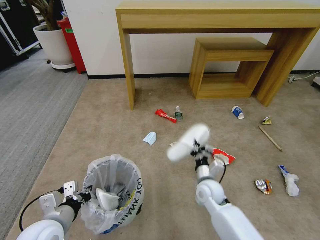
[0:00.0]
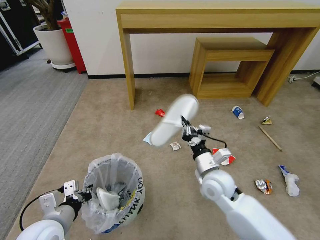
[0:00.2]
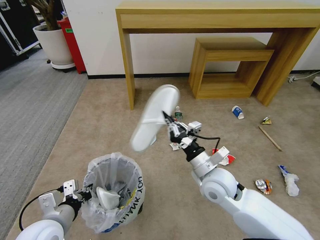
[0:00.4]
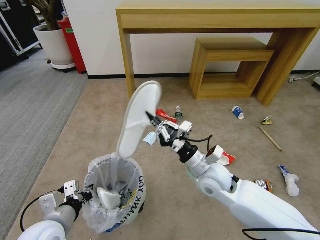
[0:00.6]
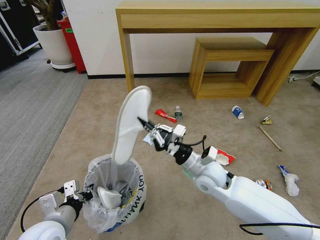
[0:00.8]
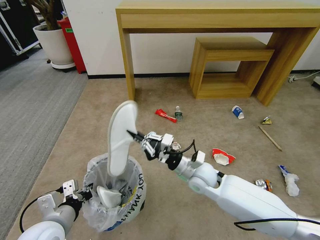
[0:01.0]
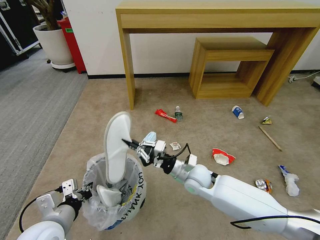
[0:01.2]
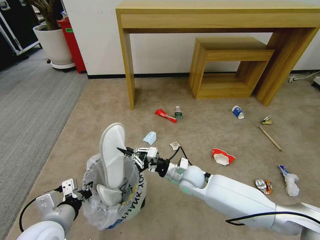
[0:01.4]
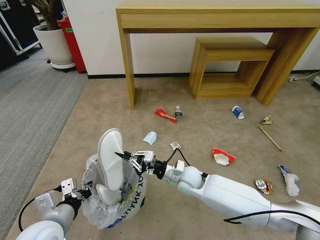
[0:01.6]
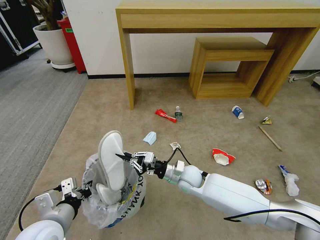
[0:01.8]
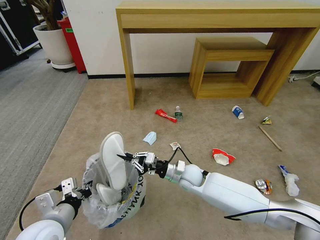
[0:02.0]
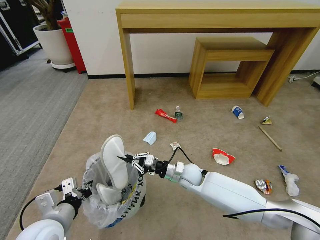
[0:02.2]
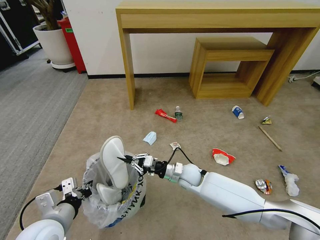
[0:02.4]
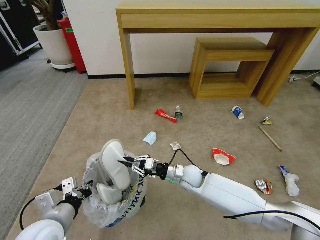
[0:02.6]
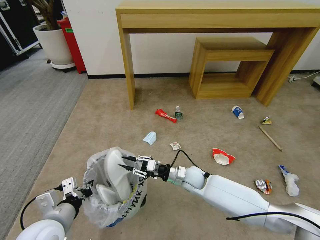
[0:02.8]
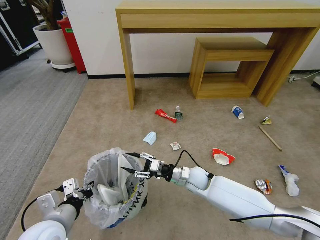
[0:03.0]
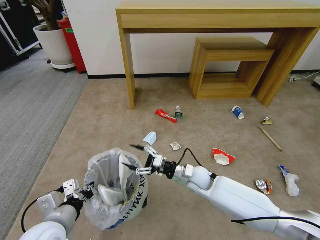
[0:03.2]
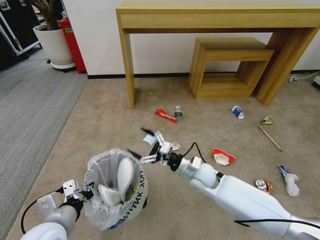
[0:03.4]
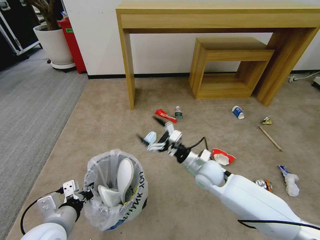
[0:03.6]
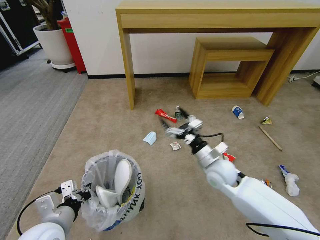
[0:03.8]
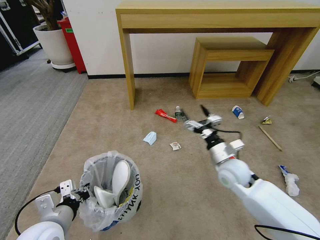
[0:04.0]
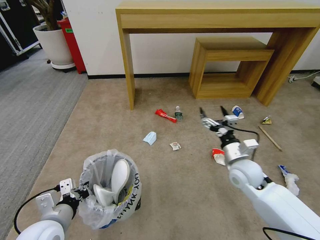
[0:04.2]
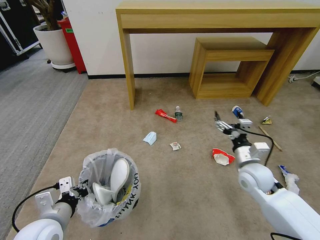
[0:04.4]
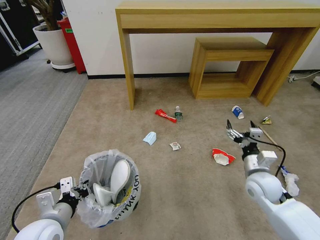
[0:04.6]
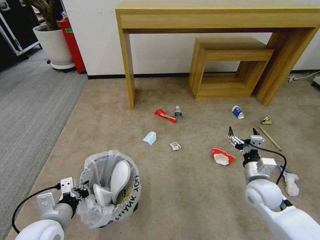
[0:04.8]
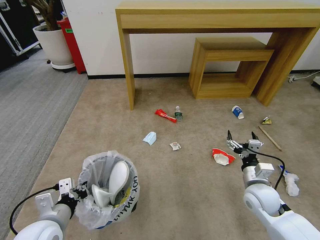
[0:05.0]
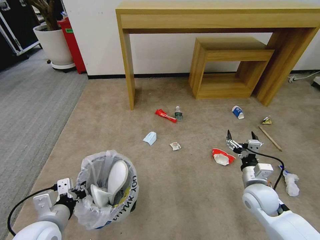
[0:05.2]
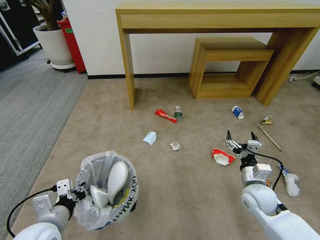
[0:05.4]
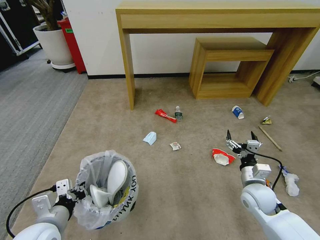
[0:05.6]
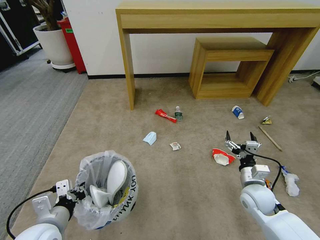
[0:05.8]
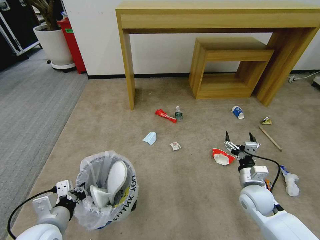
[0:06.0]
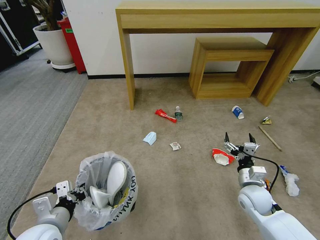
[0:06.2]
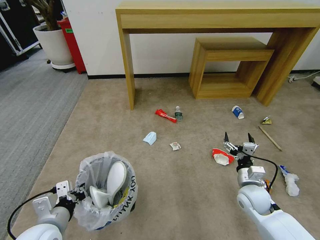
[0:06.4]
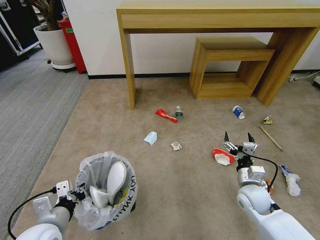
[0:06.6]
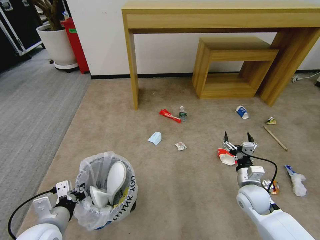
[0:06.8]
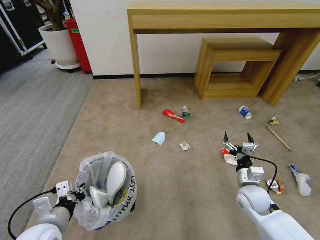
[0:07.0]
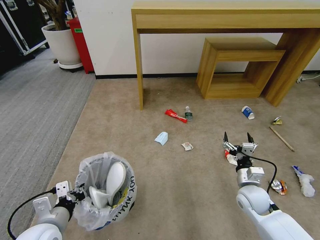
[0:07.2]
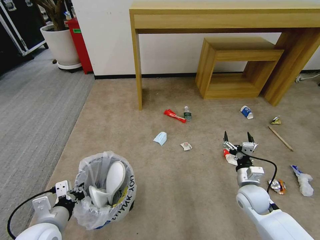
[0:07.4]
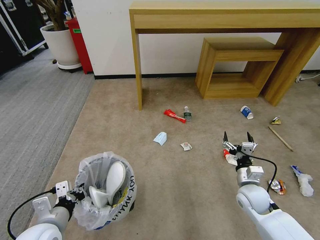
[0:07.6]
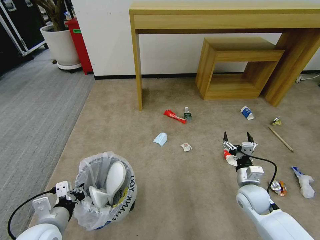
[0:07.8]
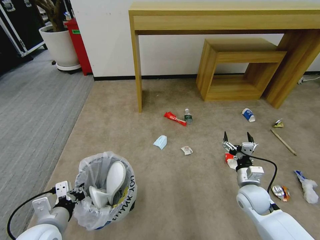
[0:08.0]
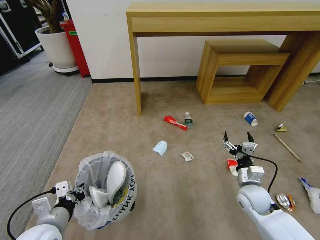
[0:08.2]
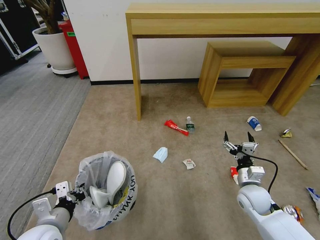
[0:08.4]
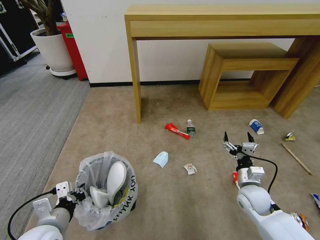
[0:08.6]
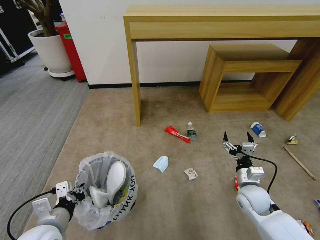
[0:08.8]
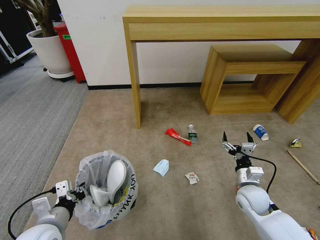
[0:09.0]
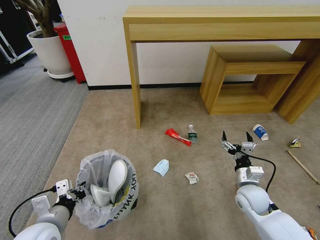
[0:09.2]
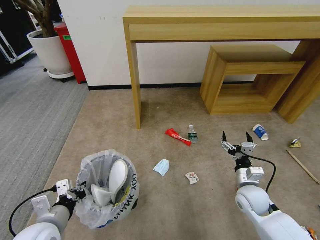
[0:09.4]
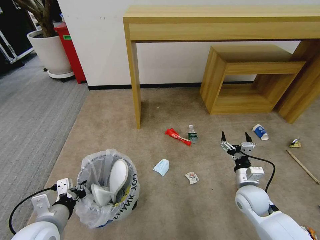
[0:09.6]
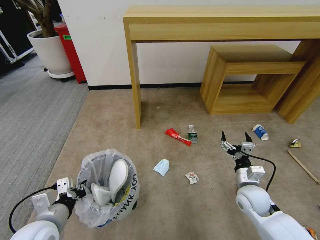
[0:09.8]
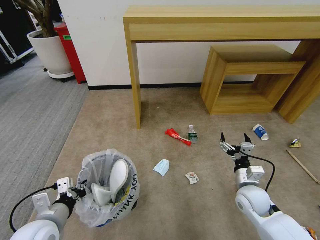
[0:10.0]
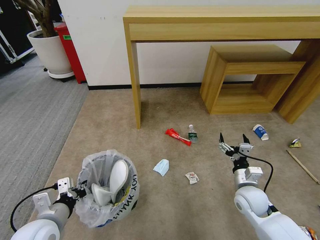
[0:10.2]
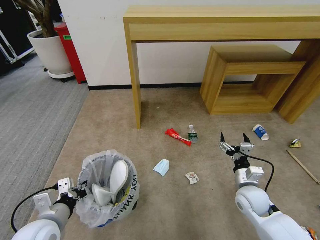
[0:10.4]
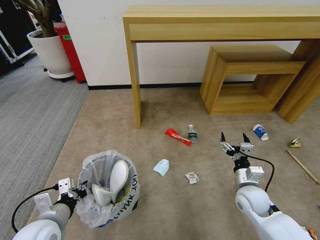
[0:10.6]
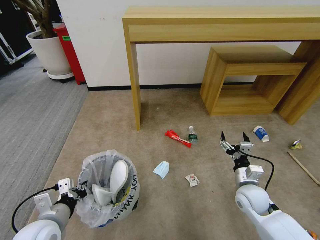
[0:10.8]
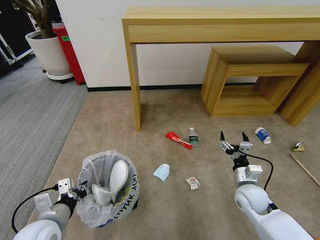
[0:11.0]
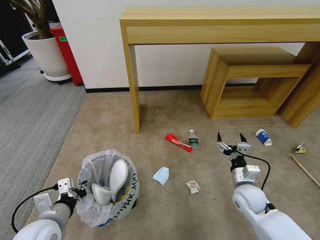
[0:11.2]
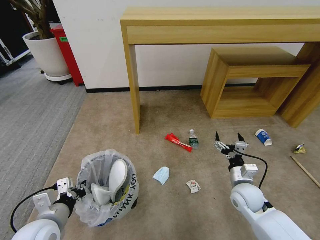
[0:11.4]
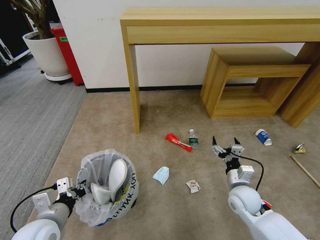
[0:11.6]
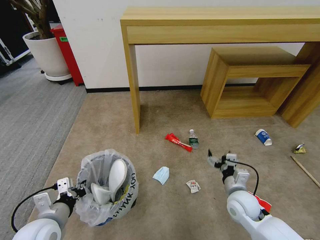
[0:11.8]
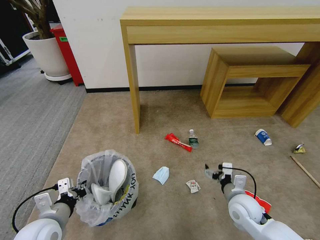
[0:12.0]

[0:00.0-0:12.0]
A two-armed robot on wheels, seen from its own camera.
Task of the whole recording: Pick up the trash bin and place the garbage on the floor into it.
0:00.0 to 0:01.6: The right gripper is displaced to the left by roughly 5 cm, and goes upward and returns, some 10 cm each way.
0:01.6 to 0:03.0: The right gripper opens its fingers.
0:03.0 to 0:04.4: The right gripper travels to the right and upward by some 20 cm, and opens.
0:04.4 to 0:06.0: The right gripper travels downward by some 10 cm.
0:06.0 to 0:07.6: Both grippers stay about where they are.
0:09.0 to 0:10.4: The grippers make only small movements.

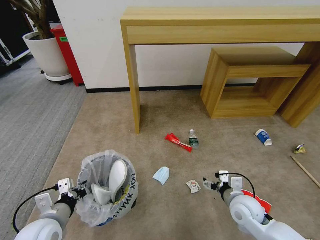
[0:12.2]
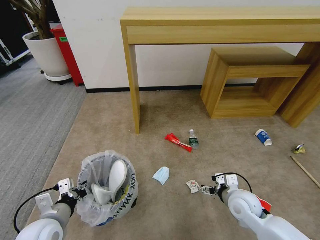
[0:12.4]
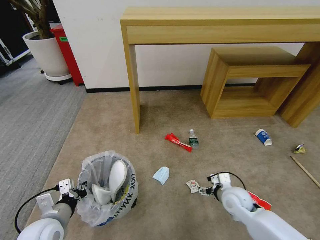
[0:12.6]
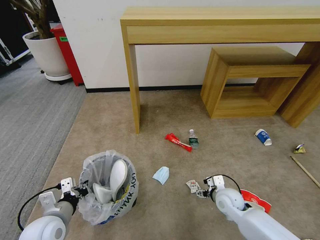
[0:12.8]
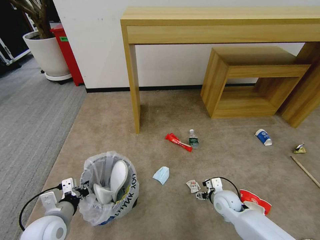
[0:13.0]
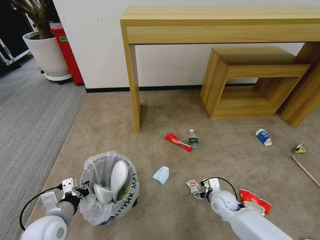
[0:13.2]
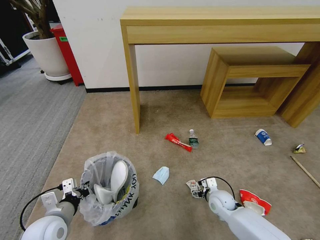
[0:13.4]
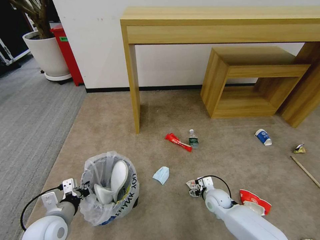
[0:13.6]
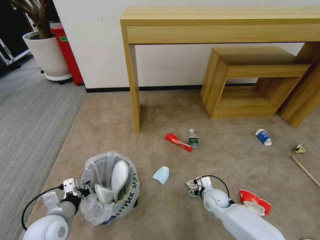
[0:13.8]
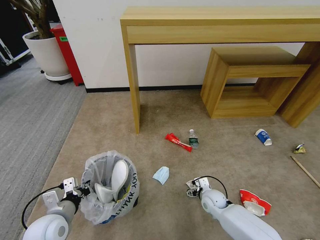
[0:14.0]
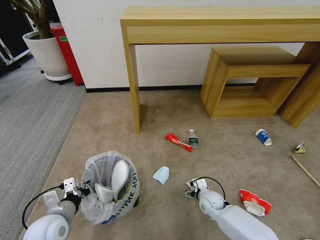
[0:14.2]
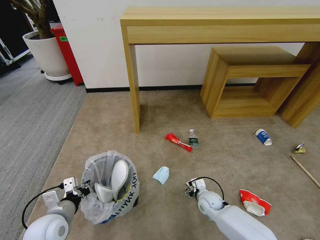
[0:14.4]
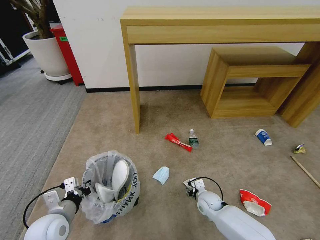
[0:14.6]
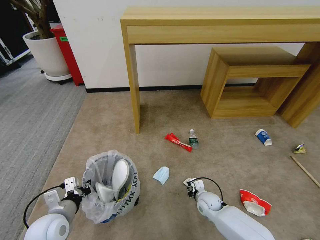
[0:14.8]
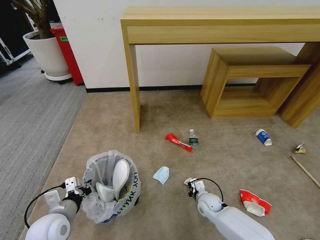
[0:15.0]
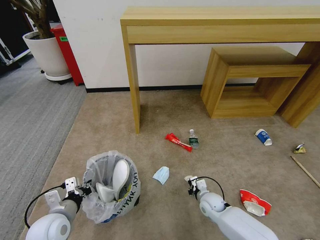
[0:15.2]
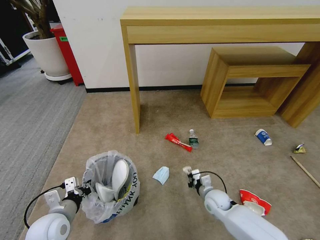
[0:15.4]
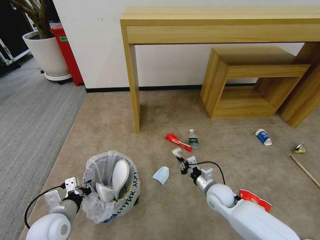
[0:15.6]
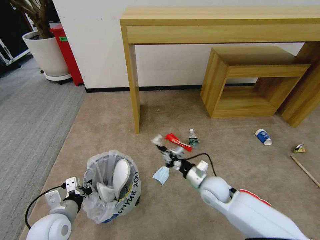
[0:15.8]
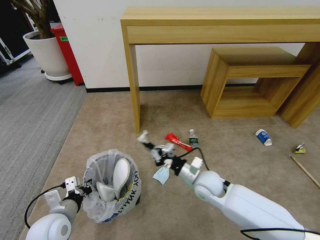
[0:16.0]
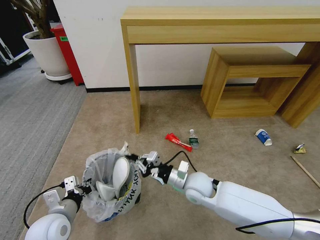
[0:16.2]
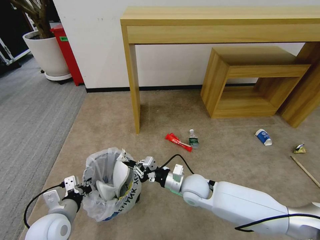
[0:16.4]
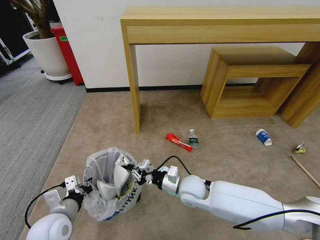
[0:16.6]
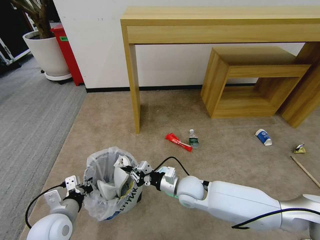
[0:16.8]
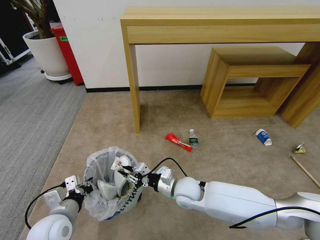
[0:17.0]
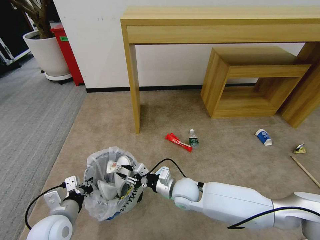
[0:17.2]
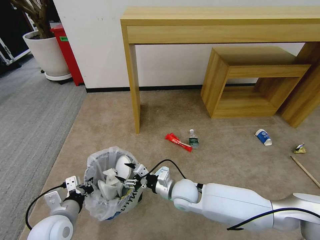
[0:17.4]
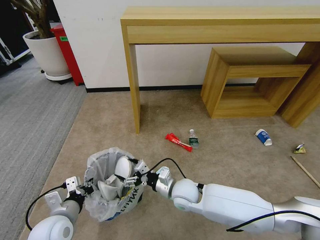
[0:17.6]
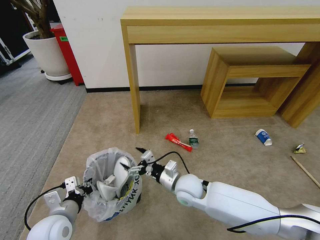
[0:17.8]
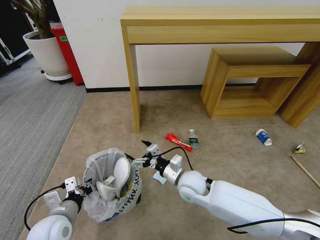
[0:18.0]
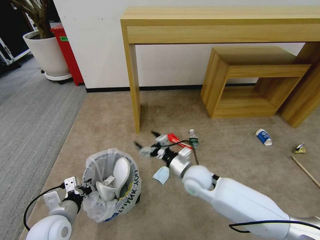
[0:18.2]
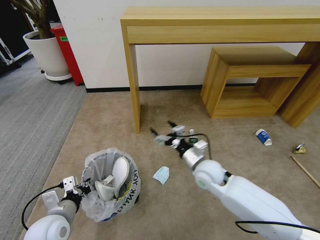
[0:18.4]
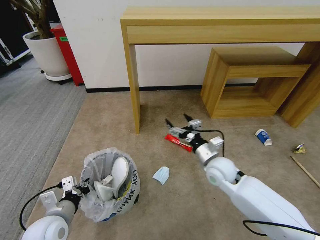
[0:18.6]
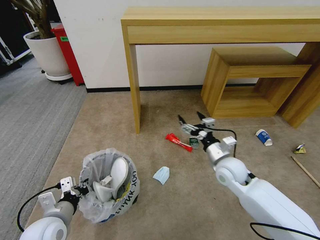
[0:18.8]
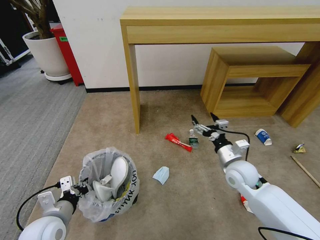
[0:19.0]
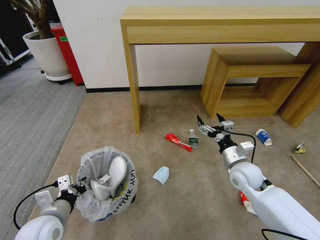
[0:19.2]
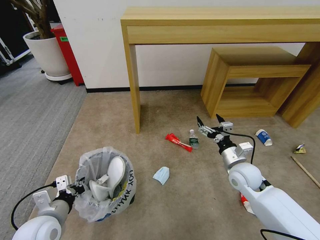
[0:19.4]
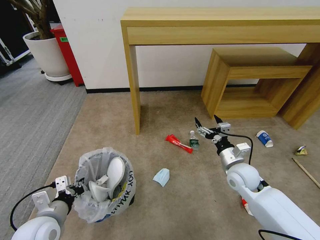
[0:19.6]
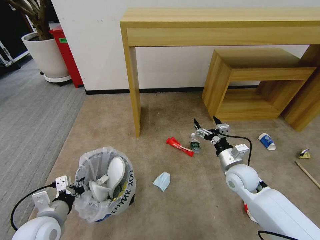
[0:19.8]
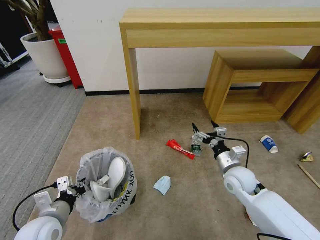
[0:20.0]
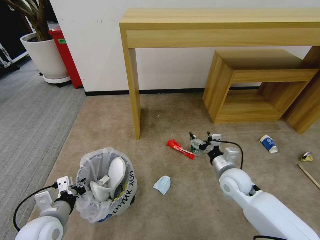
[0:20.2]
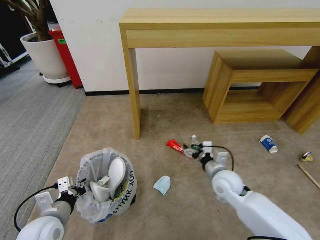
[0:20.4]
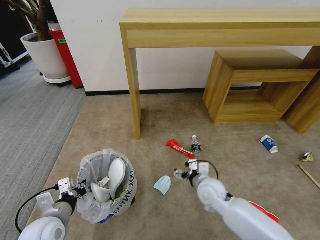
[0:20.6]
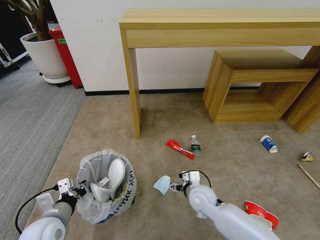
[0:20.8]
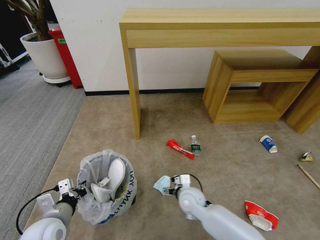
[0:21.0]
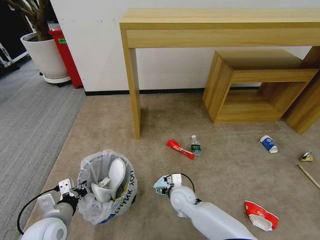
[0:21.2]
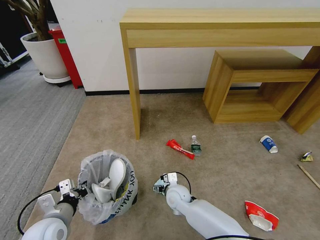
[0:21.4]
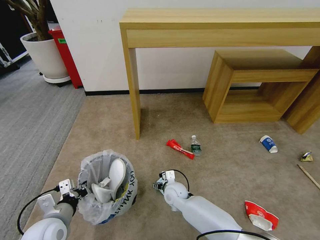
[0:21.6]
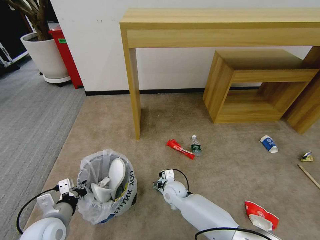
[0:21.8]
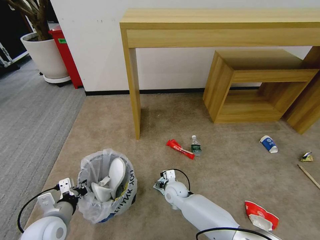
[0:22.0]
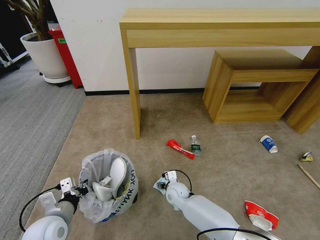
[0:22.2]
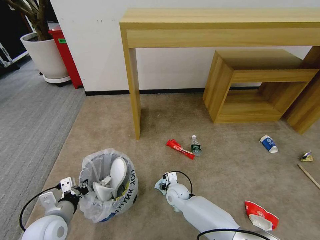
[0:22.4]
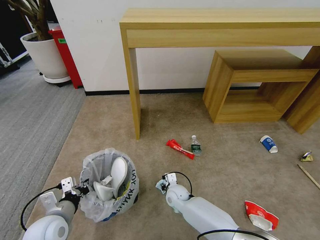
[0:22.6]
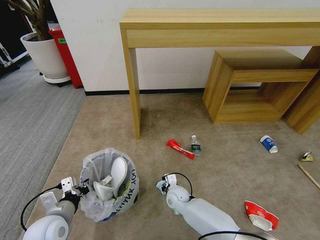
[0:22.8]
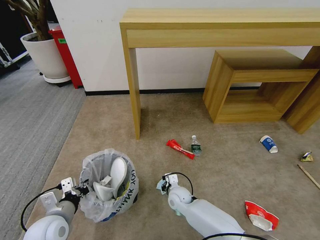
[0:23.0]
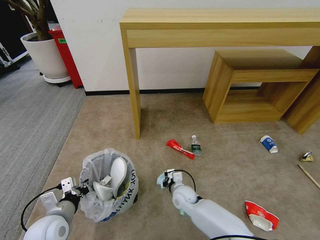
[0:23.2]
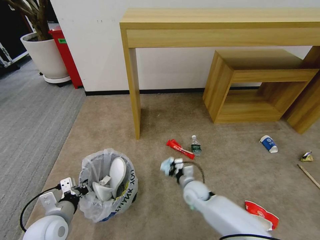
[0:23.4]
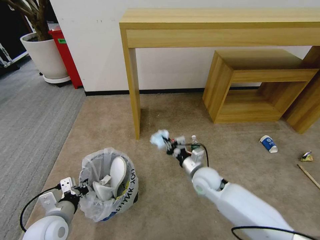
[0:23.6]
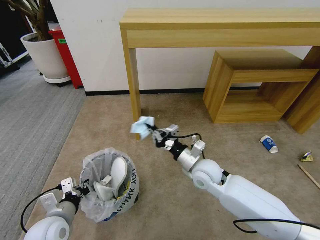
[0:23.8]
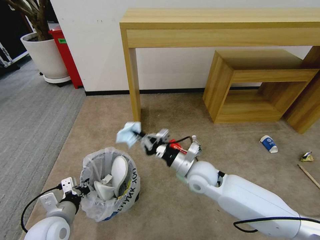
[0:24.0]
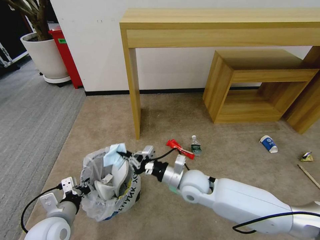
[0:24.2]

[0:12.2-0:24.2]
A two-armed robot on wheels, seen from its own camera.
Task of the whole recording: Pick up the trash bin and place the garbage on the floor into it.
0:12.2 to 0:13.8: The right gripper shifts approximately 15 cm downward and forward.
0:13.8 to 0:15.2: The right gripper closes up.
0:15.2 to 0:16.6: The right gripper moves upward and to the left, roughly 20 cm.
0:16.6 to 0:18.2: The right gripper opens its fingers.
0:18.2 to 0:19.8: The right gripper moves to the right, approximately 15 cm.
0:19.8 to 0:21.2: The right gripper moves to the left and downward, roughly 25 cm.
0:21.2 to 0:22.6: The right gripper goes roughly 5 cm downward, and closes up.
0:22.6 to 0:24.2: The right gripper shifts approximately 20 cm upward, and closes.
